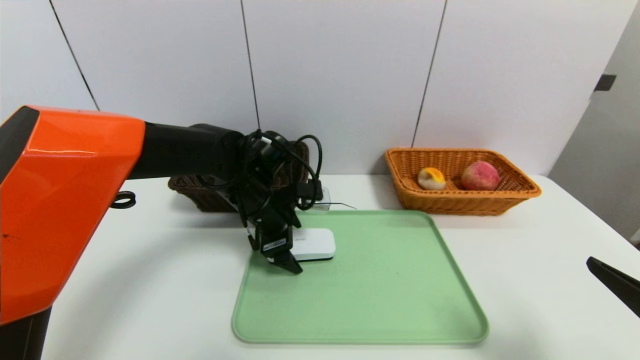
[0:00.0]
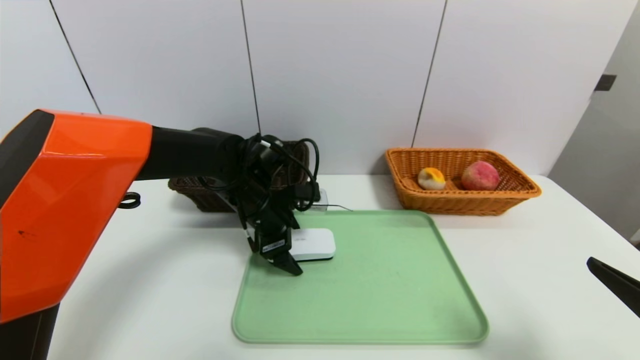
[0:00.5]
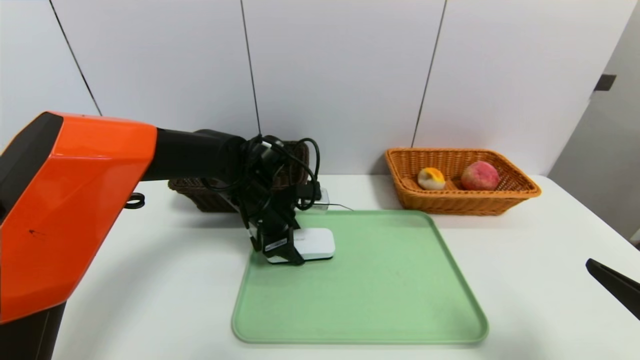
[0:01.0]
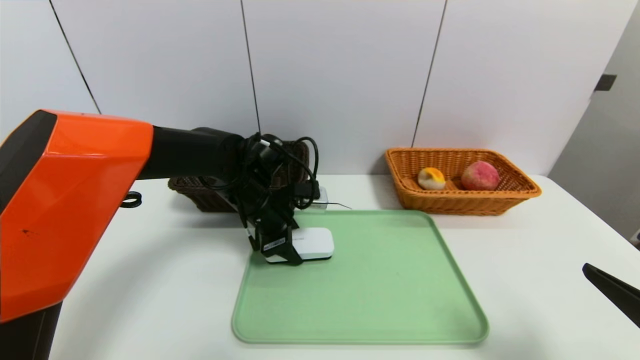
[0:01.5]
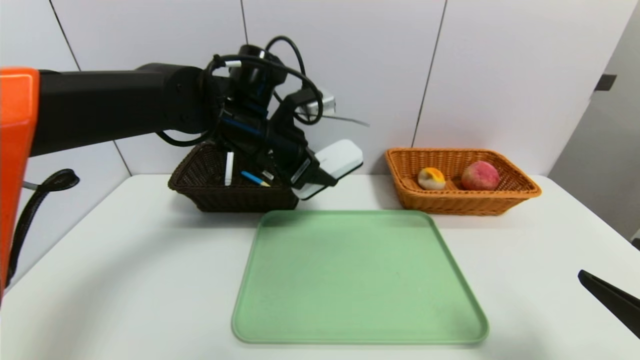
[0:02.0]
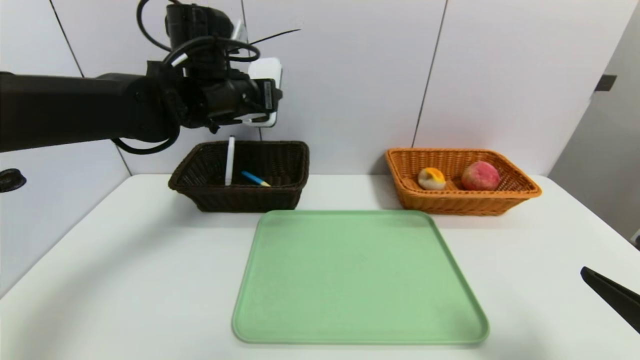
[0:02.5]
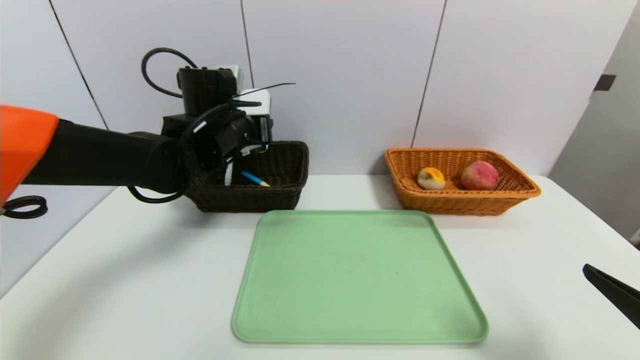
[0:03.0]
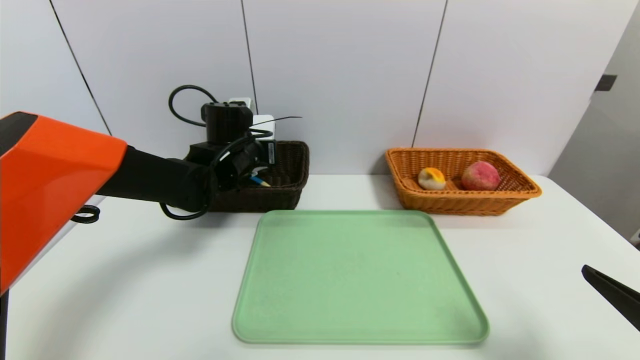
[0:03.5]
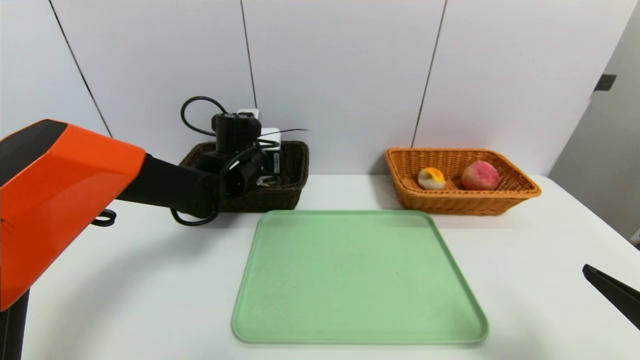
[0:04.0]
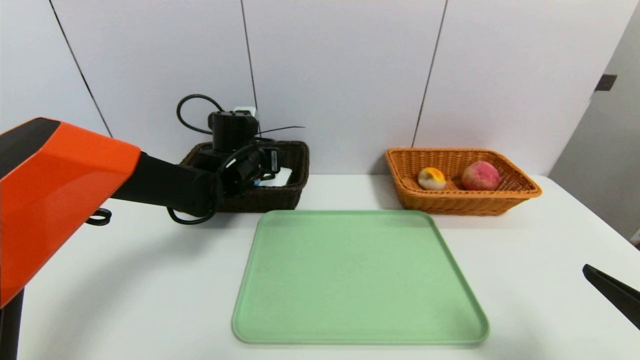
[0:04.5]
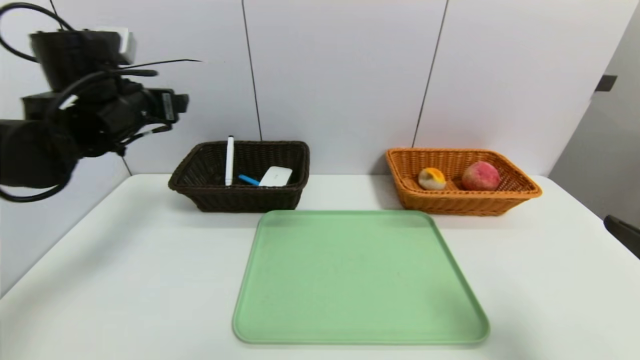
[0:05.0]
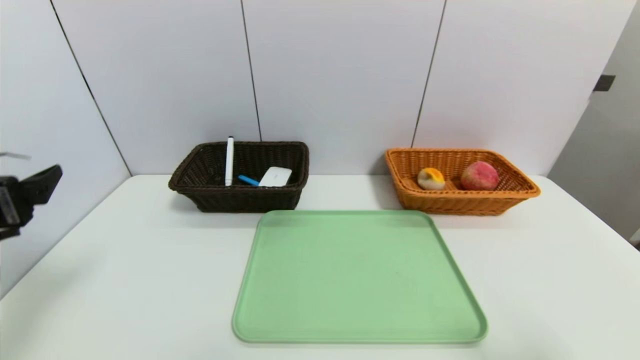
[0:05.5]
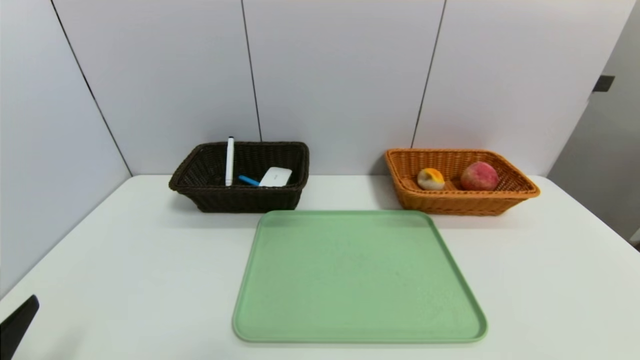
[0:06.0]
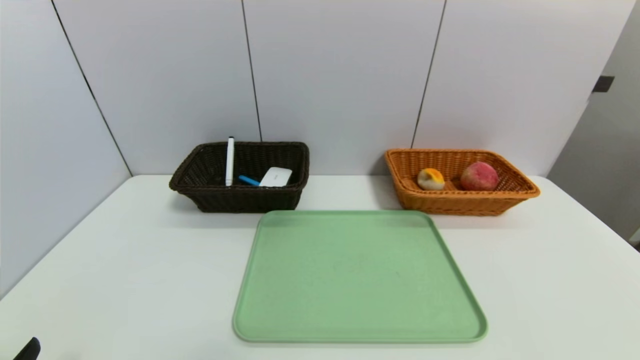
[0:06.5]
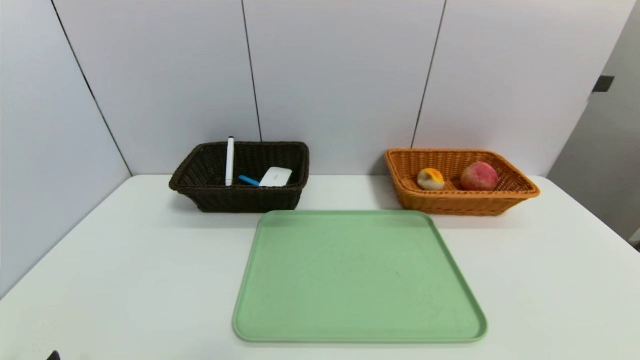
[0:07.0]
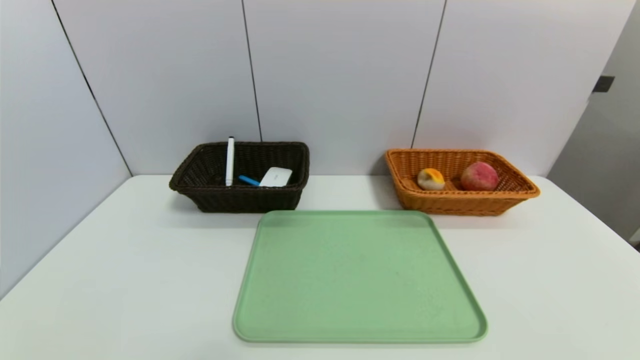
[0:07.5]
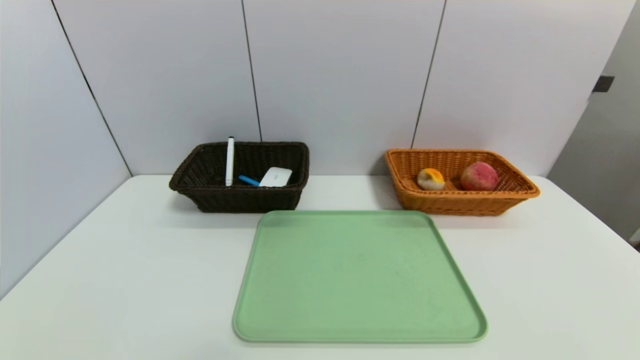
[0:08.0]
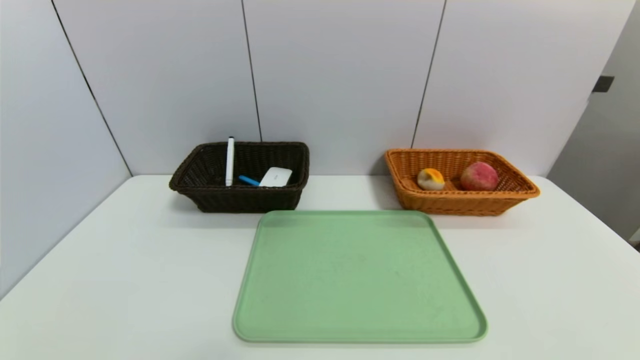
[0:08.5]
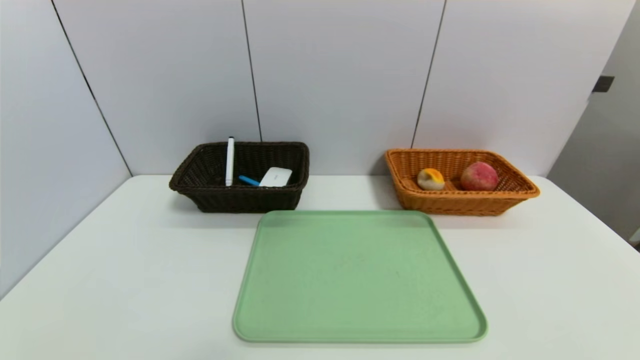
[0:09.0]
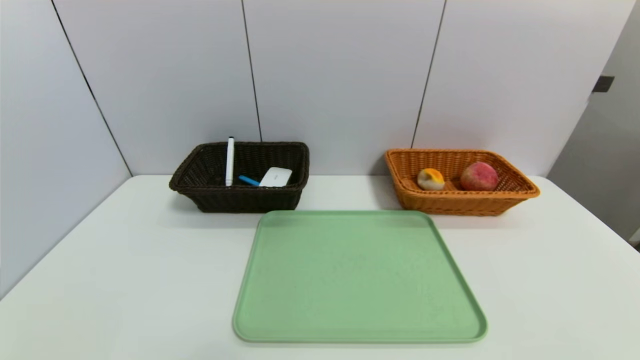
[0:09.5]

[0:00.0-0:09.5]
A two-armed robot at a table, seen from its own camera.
Task of the whole recording: place the food in the right basket with the right gripper, and place the non food items in the left basket with the left gripper.
Step, 0:00.0 to 0:04.5: Grasp the white eraser and put it in the left basket.
0:00.0 to 0:02.0: The left gripper is displaced upward by some 10 cm, and closes.
0:02.0 to 0:04.0: The left gripper is displaced downward and forward by roughly 10 cm.
0:04.0 to 0:05.5: The left gripper goes approximately 35 cm backward and to the left, while the right gripper moves about 5 cm.
0:05.5 to 0:07.5: The left gripper is displaced downward and backward by roughly 20 cm. Meanwhile the right gripper goes some 15 cm downward.
